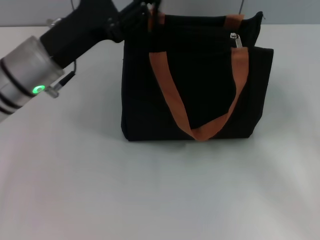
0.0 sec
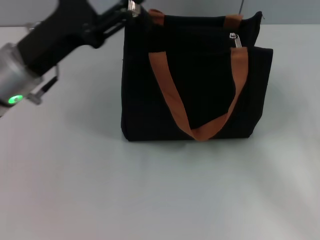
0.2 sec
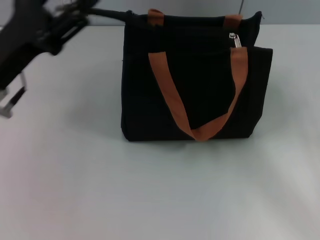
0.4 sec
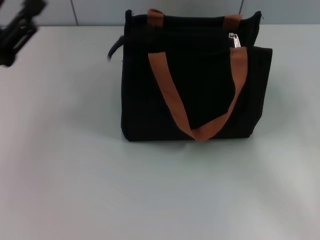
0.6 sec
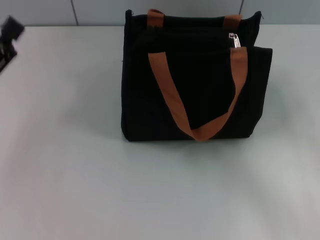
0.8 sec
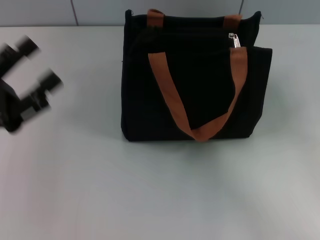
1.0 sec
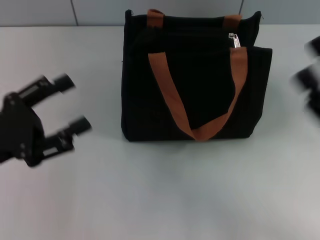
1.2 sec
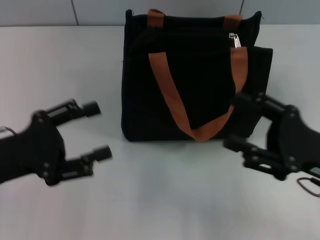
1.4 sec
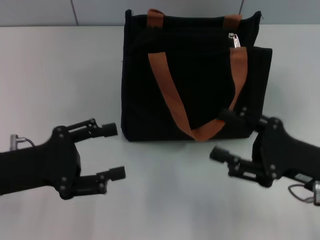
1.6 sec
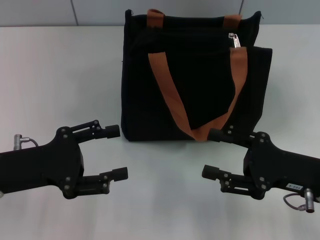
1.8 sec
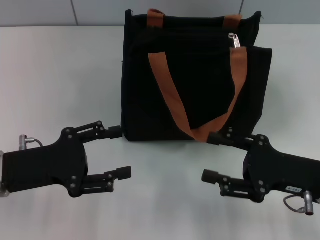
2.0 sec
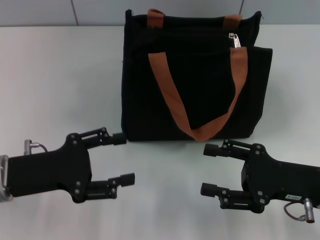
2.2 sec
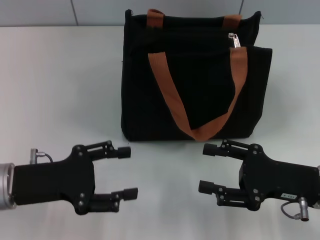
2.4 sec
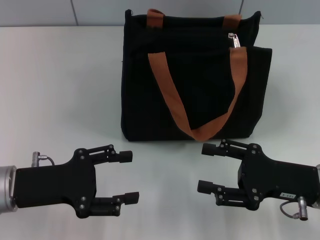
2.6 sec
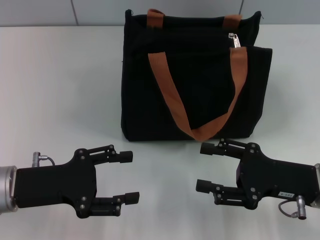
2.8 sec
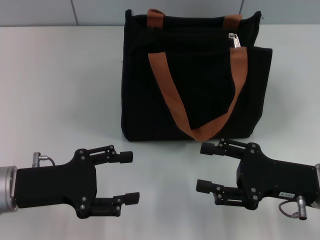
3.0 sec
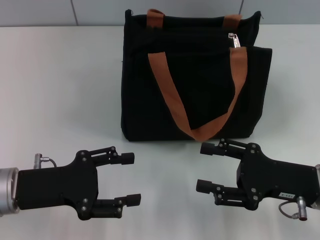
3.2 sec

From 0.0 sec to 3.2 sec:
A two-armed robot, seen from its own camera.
From 0.0 sec to 1.6 sec: The left gripper shifts some 15 cm backward and to the left, and opens, while the right gripper is displaced to the left by roughly 5 cm.
From 1.6 sec to 3.2 sec: The grippers stay close to where they were, moving slightly.

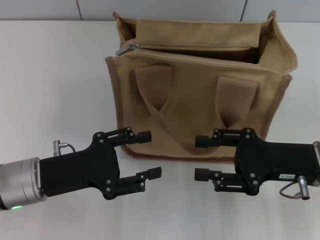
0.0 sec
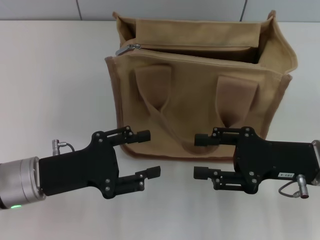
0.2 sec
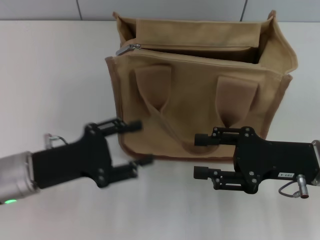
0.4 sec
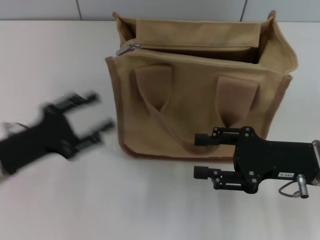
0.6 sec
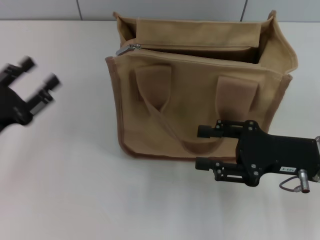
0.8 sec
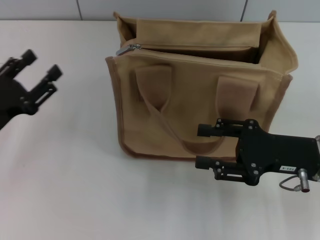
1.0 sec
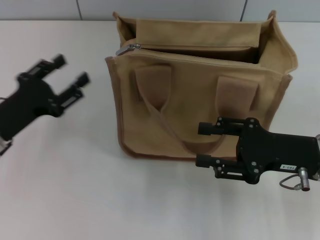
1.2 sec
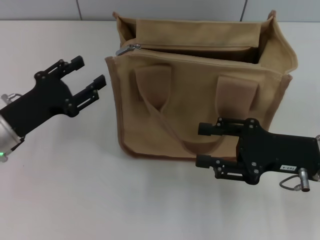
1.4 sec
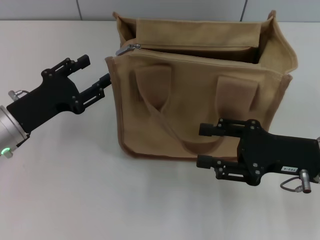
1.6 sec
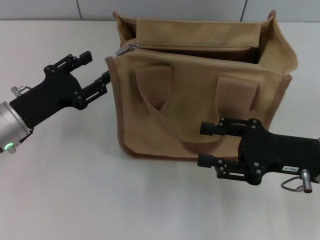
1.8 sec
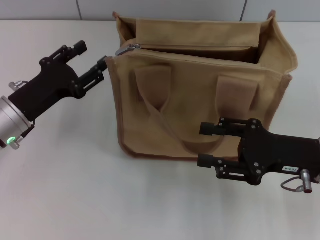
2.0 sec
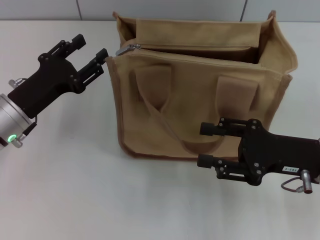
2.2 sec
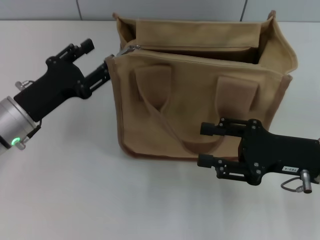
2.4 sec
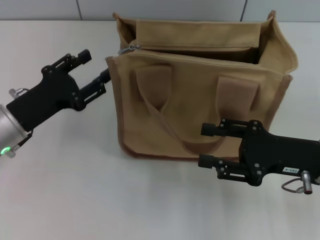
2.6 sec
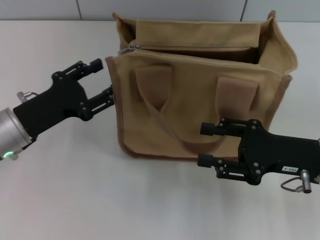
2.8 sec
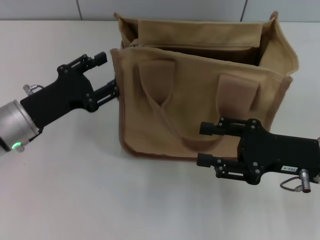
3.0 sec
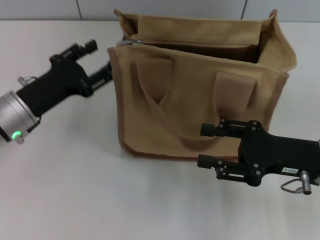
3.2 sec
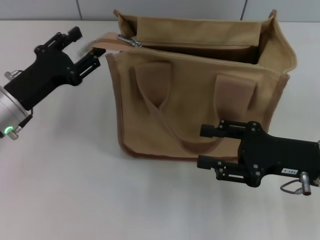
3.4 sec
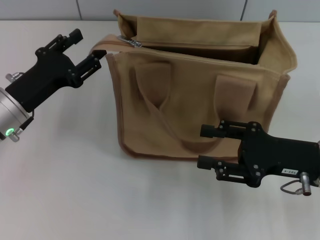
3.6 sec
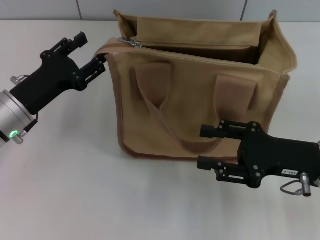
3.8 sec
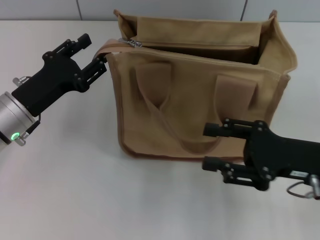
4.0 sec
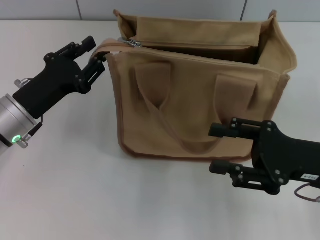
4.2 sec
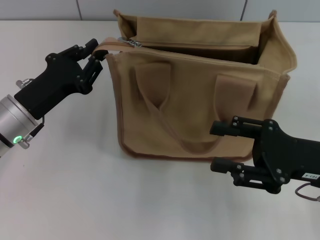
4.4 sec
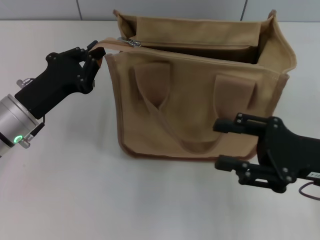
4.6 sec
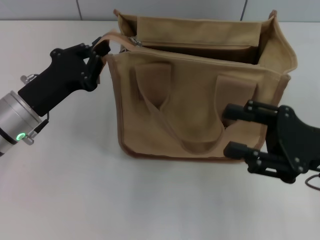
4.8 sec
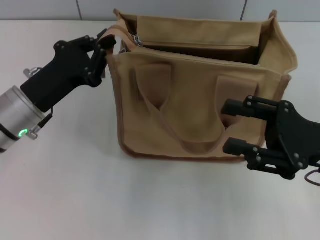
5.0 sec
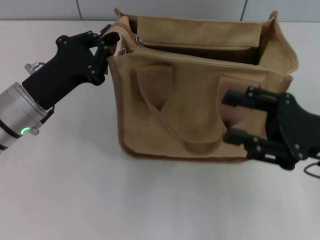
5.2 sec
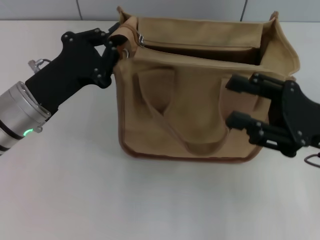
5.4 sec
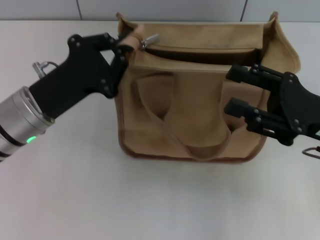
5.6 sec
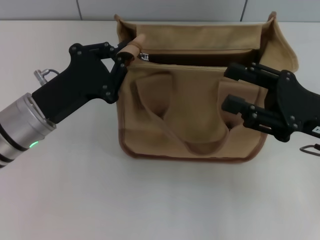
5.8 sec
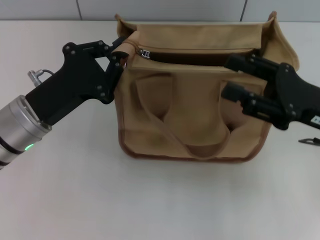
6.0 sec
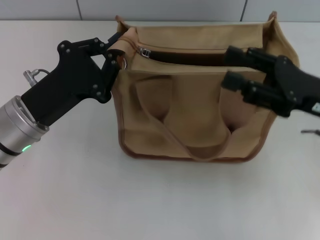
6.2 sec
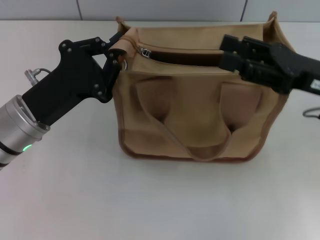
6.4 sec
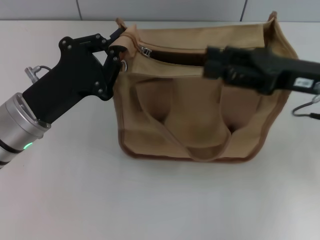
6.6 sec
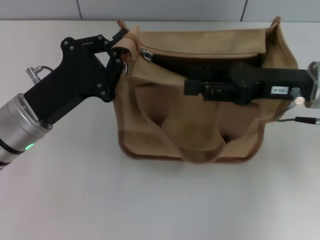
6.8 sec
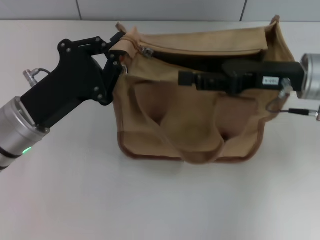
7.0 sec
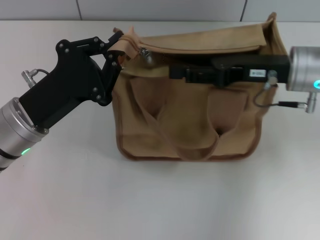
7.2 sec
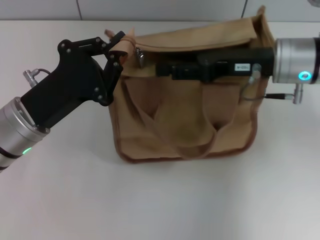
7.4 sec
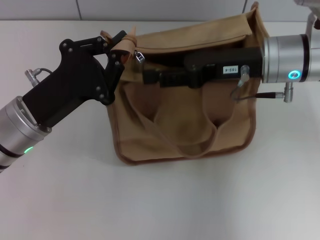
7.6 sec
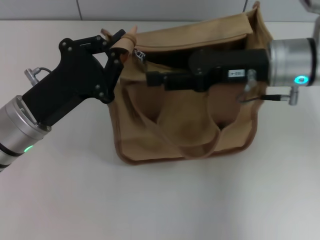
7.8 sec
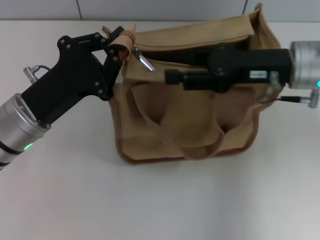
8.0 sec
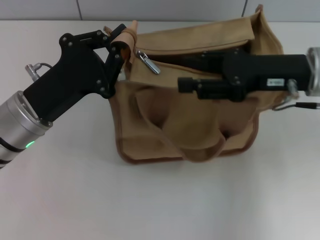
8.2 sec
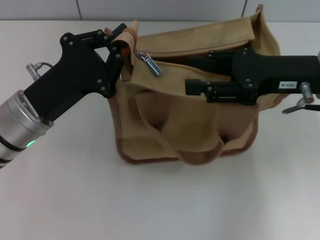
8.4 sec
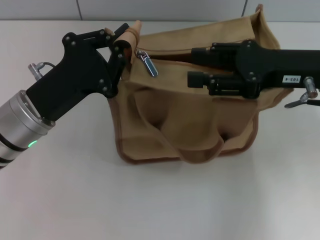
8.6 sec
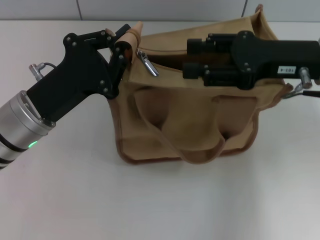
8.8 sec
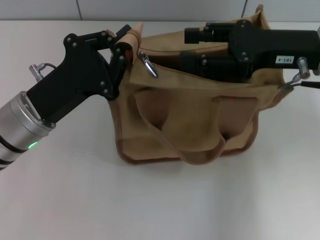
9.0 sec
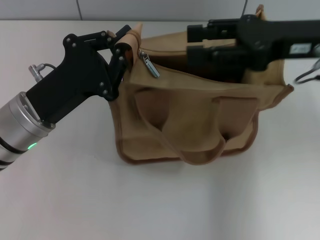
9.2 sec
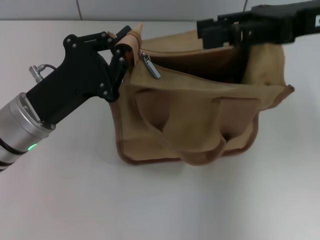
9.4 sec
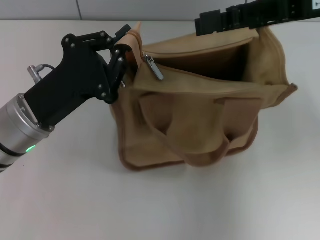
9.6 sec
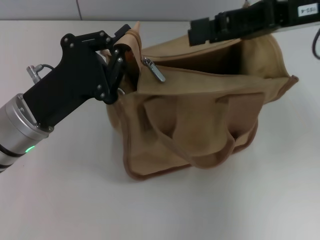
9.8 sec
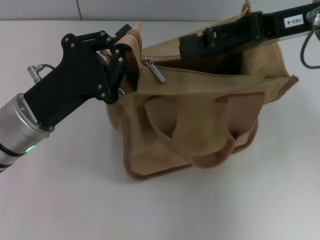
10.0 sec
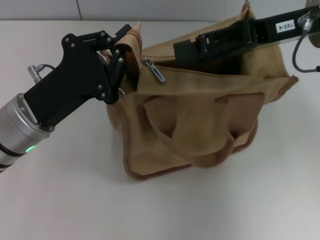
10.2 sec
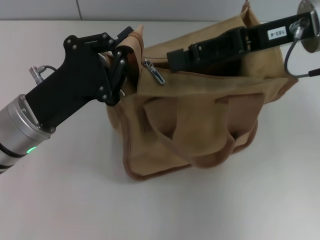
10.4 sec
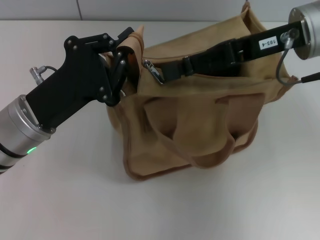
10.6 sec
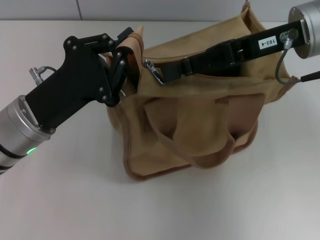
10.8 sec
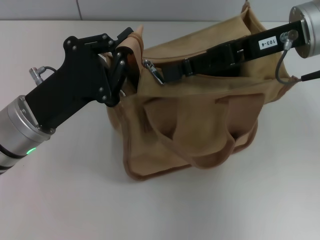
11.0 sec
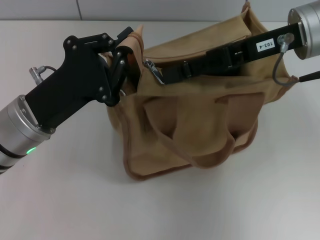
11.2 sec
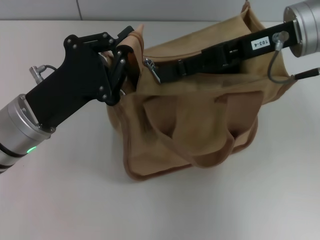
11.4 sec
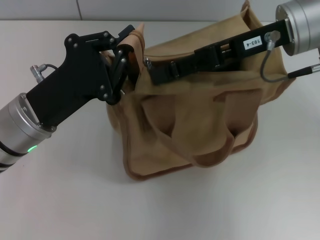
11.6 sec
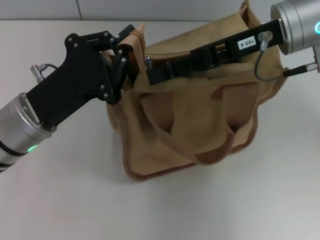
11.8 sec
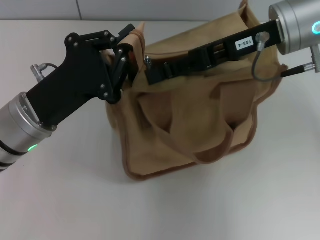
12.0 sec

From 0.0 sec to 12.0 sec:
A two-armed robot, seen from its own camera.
From 0.0 sec to 1.6 sec: The left gripper goes approximately 5 cm forward.
From 1.6 sec to 4.4 sec: There are only small adjustments of the grippers.
From 4.4 sec to 6.0 sec: The left gripper closes its fingers.
From 6.0 sec to 7.6 sec: The right gripper travels forward and to the left by about 10 cm.
From 7.6 sec to 9.0 sec: The right gripper moves approximately 5 cm.
From 10.4 sec to 12.0 sec: The grippers make only small movements.

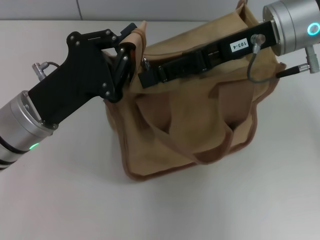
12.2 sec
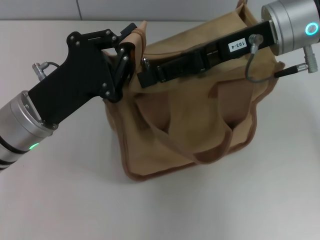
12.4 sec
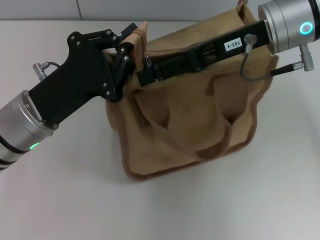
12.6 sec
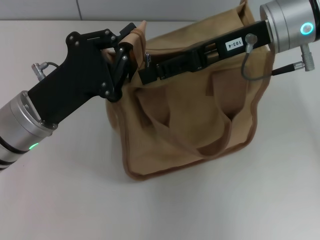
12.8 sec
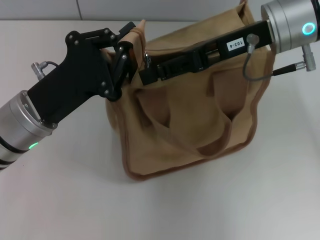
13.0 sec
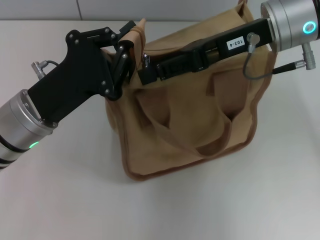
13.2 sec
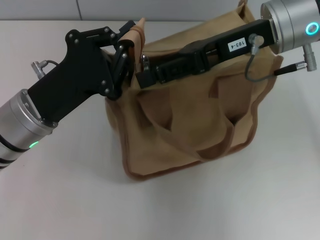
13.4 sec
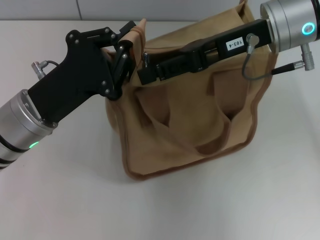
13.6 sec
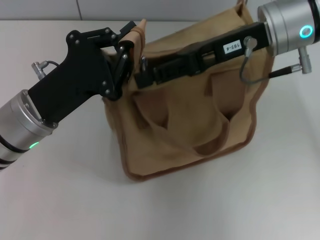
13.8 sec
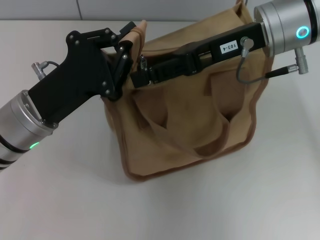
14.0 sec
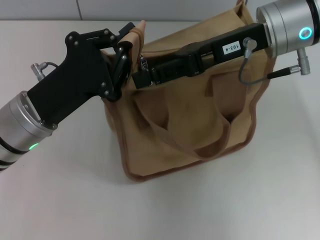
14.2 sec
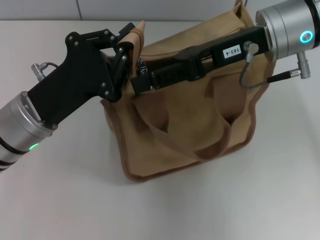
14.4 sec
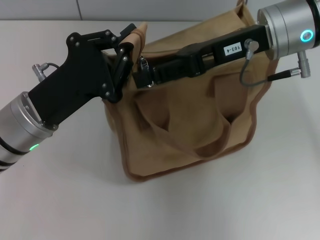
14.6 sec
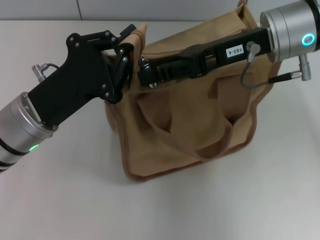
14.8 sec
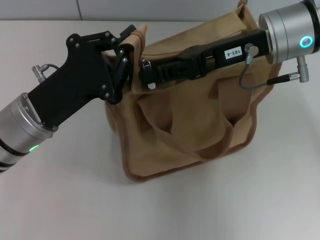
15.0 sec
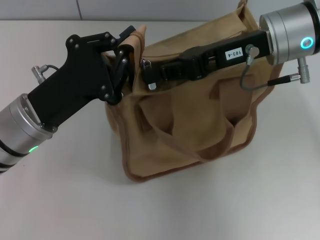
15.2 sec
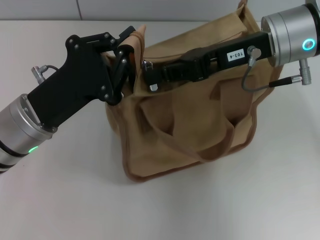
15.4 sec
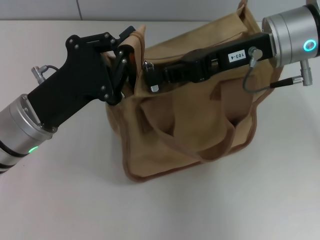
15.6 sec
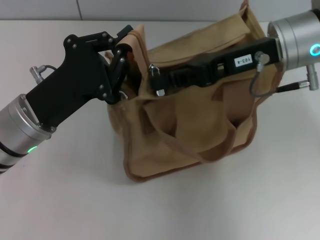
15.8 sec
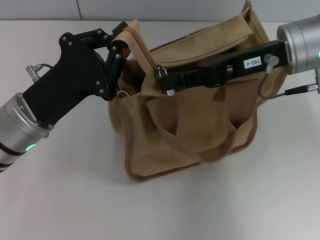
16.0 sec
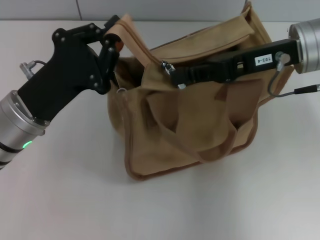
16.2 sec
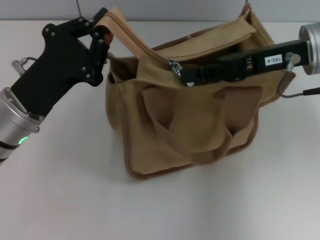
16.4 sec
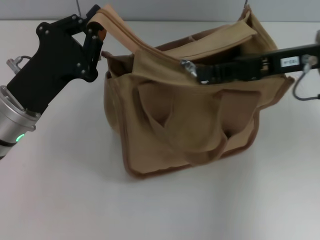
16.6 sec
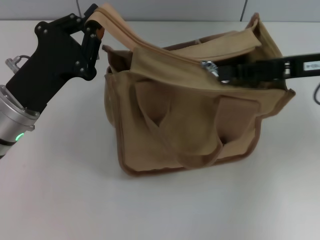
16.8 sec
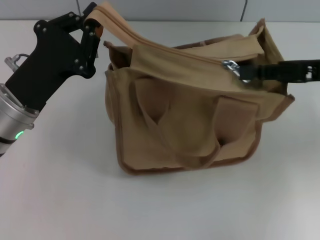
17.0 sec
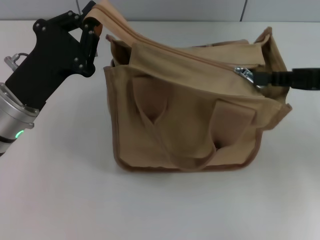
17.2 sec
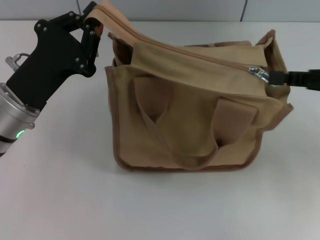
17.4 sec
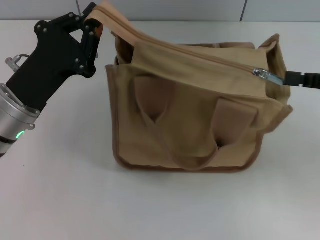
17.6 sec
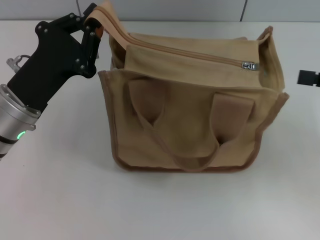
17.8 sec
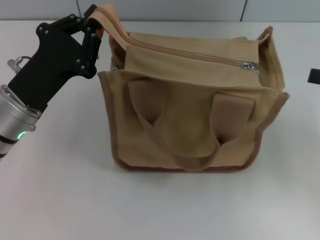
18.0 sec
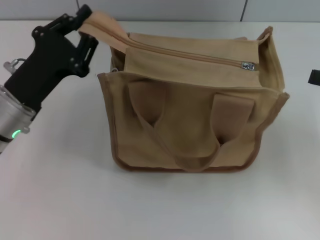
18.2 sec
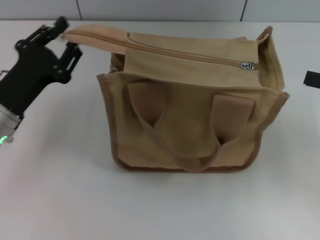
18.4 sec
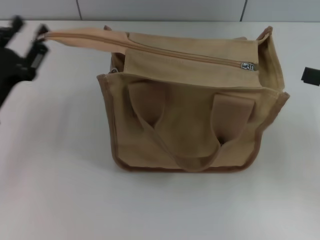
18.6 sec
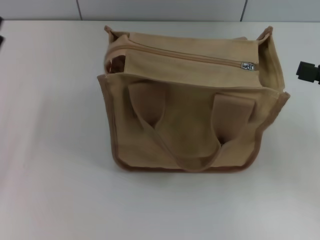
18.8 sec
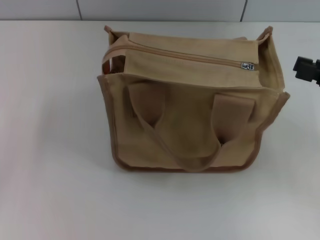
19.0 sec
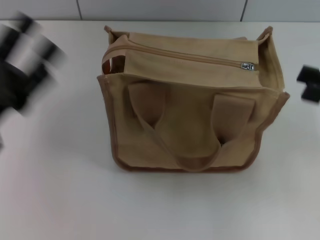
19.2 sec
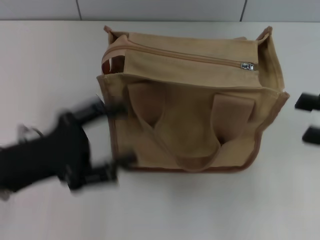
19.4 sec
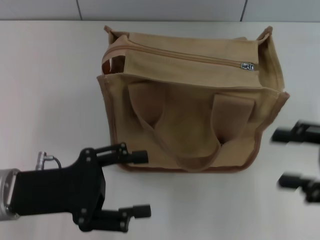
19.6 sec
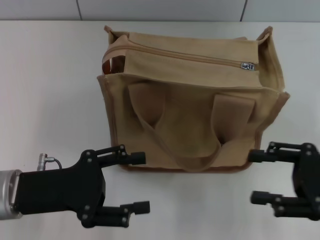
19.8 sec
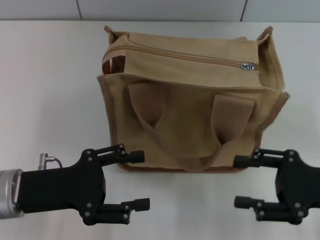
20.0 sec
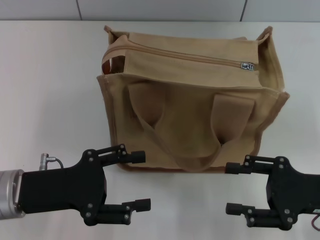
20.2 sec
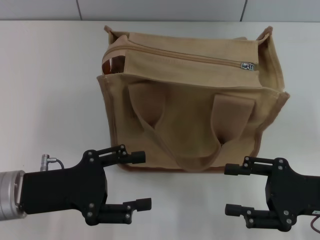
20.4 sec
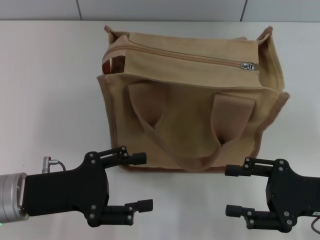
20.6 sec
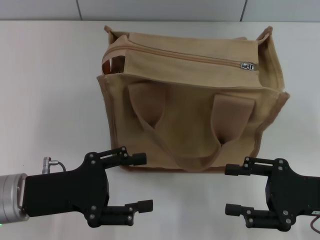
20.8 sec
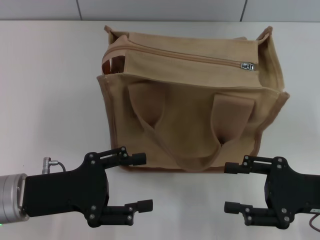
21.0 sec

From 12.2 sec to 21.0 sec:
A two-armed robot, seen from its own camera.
Step, from 12.2 sec to 17.6 sec: Pull up the zipper with your right hand.
Step, from 17.8 sec to 18.6 sec: Grab the zipper with your left hand.
From 12.2 sec to 13.6 sec: Neither gripper changes place.
From 13.6 sec to 15.2 sec: The right gripper closes up.
From 15.2 sec to 16.6 sec: The right gripper moves to the right, about 5 cm.
From 16.6 sec to 18.0 sec: The right gripper moves to the right and backward, some 15 cm.
From 18.0 sec to 19.6 sec: The grippers both shift backward by some 5 cm. The left gripper moves some 10 cm to the left and comes back, and opens up. The right gripper opens.
From 19.6 sec to 21.0 sec: The right gripper is displaced downward by about 5 cm.
